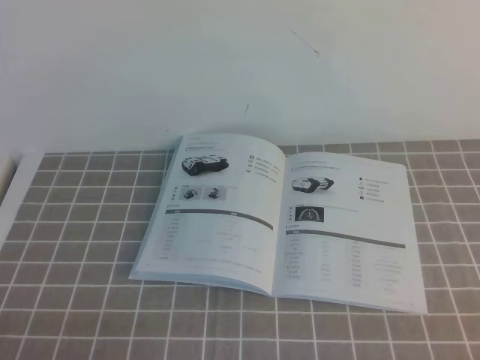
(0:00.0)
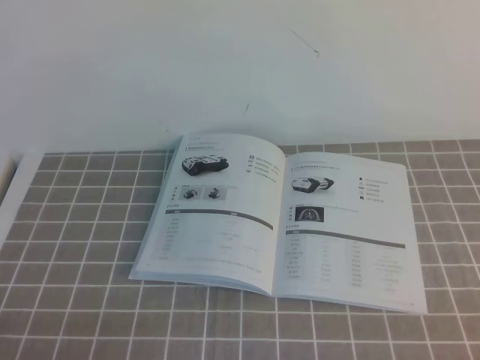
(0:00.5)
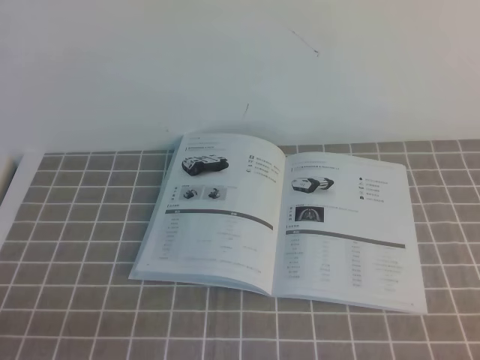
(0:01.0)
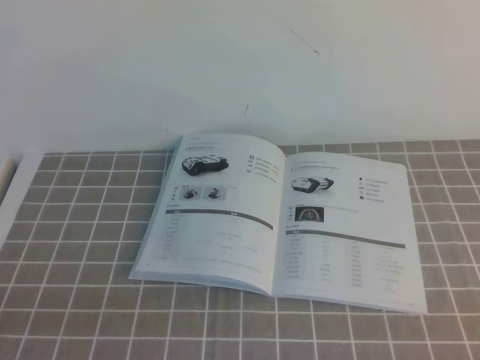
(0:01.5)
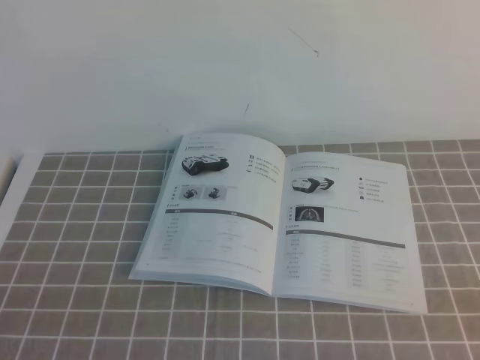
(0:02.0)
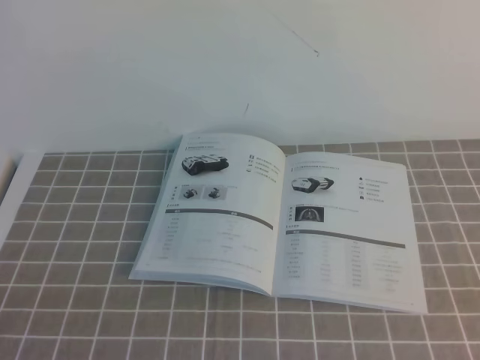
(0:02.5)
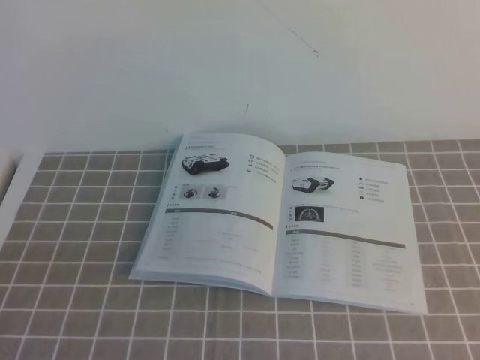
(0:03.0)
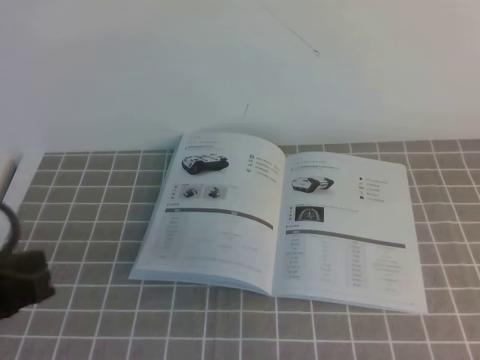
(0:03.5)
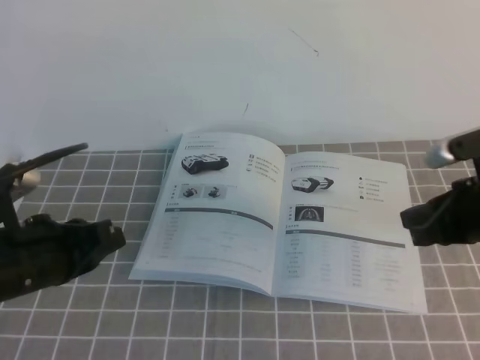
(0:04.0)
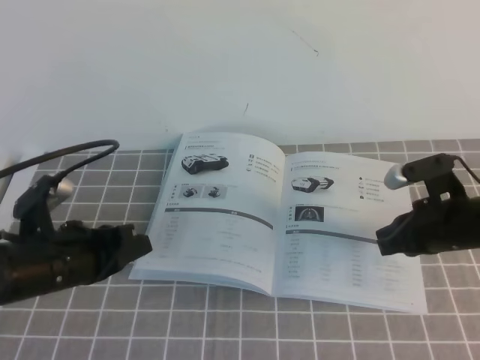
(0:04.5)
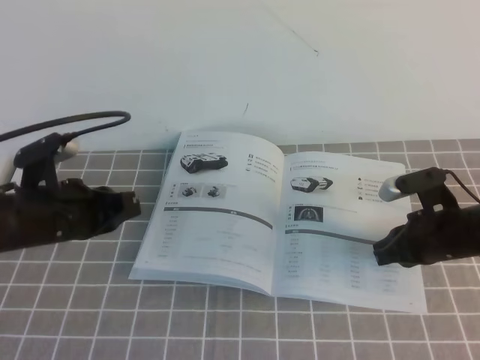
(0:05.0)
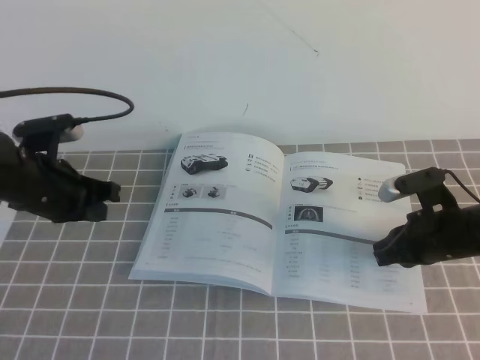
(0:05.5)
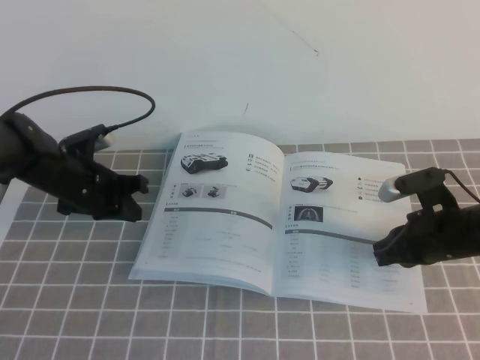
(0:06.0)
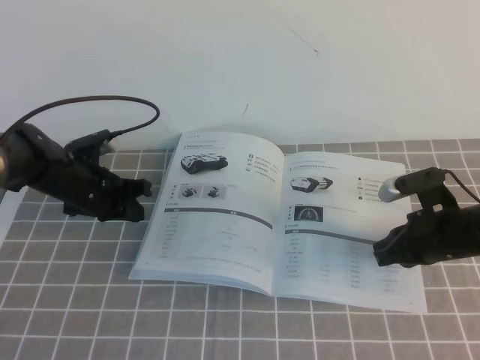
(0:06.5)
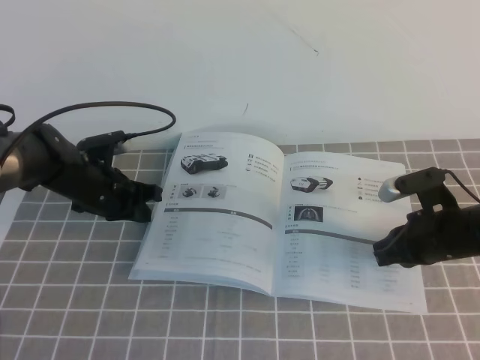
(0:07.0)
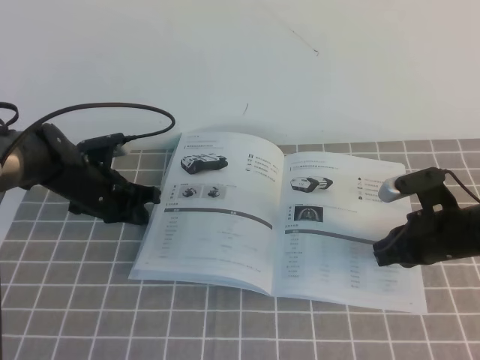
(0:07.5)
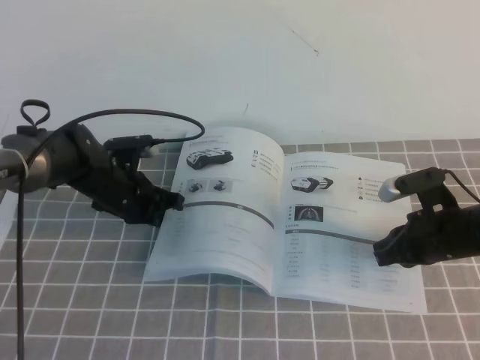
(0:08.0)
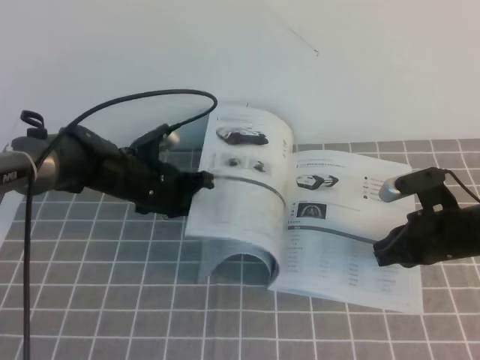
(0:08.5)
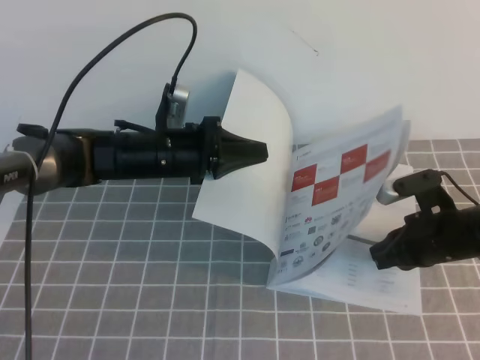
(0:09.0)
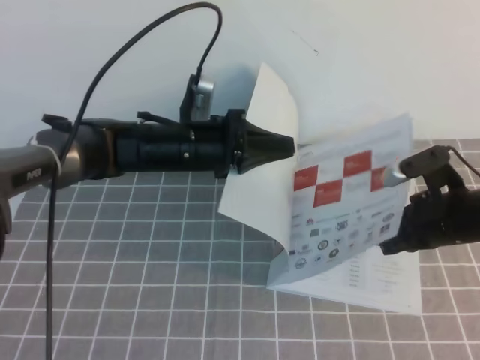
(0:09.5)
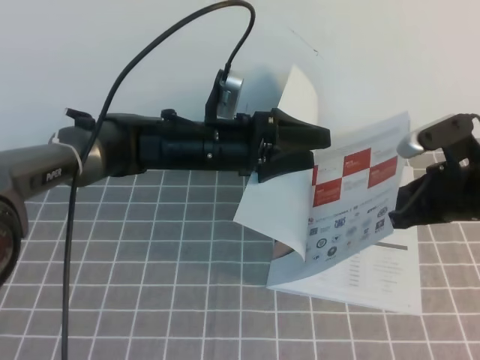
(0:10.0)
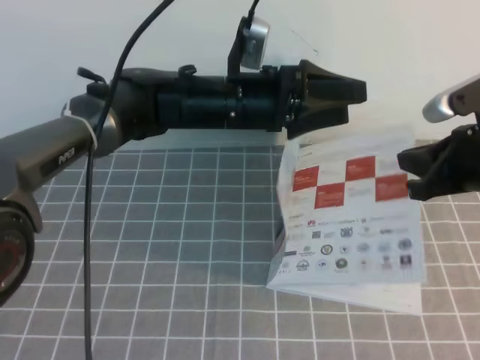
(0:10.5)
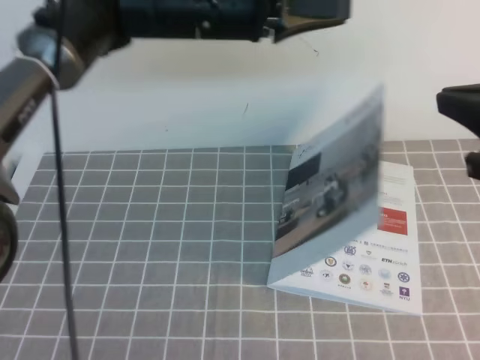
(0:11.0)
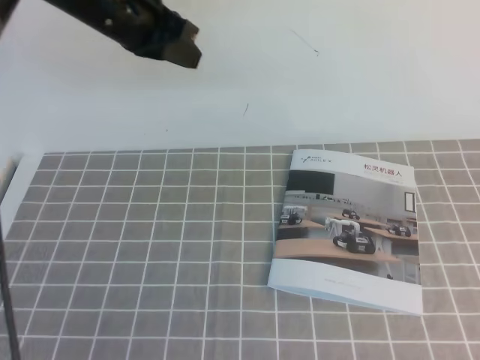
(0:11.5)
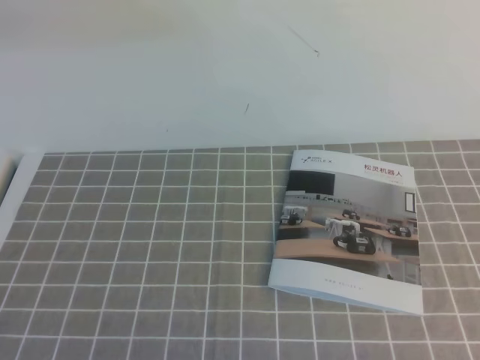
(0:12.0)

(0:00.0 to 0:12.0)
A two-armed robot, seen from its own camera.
Task of the whole recording: on the grey tablecloth, hold the book with one hand and close it with the other.
0:02.0 - 0:04.0: Both grippers move forward, roughly 20 cm.
0:04.0 - 0:06.0: The left gripper shifts about 20 cm forward. The right gripper heads downward and forward, covering about 10 cm.
0:06.0 - 0:08.0: The left gripper moves roughly 5 cm.
0:08.0 - 0:10.0: The left gripper moves to the right and upward, about 15 cm, and opens up. Meanwhile the right gripper heads upward, covering about 10 cm.
0:10.0 - 0:12.0: The right gripper shifts some 25 cm backward and upward. Meanwhile the left gripper goes some 30 cm upward and to the left, and closes its fingers.
